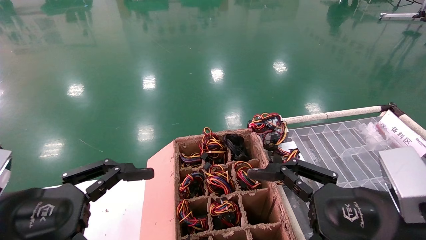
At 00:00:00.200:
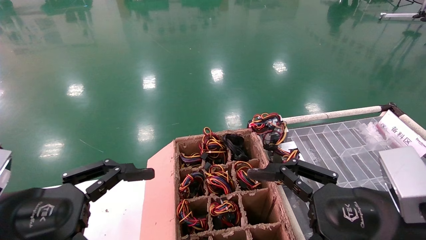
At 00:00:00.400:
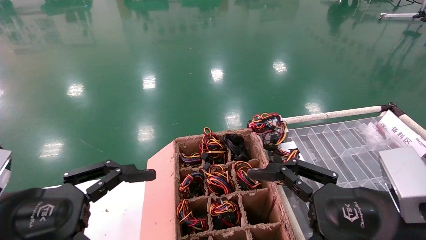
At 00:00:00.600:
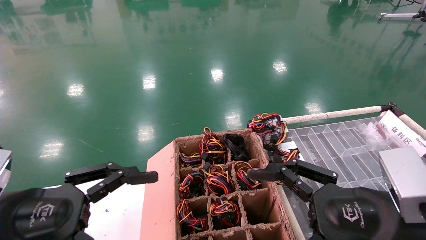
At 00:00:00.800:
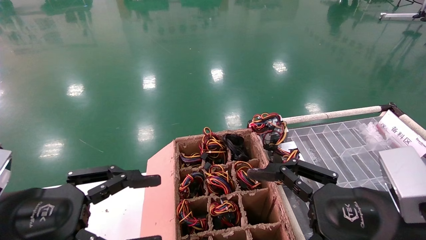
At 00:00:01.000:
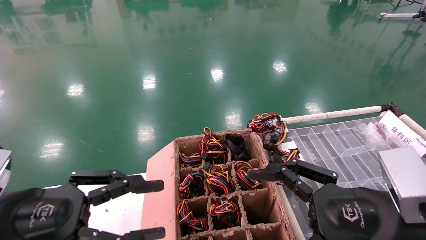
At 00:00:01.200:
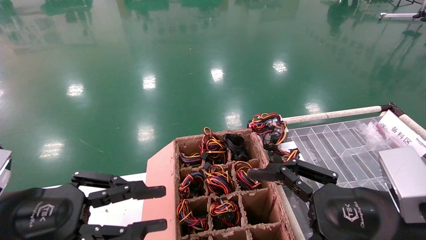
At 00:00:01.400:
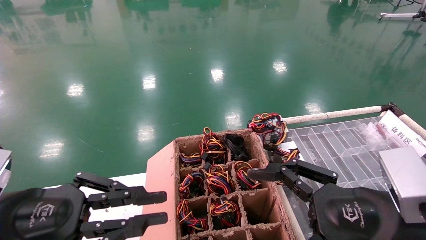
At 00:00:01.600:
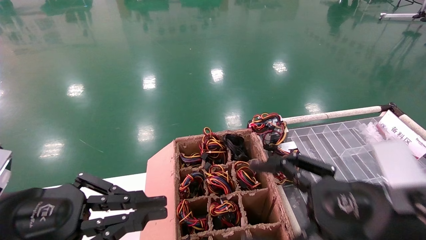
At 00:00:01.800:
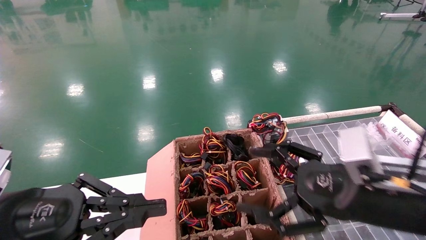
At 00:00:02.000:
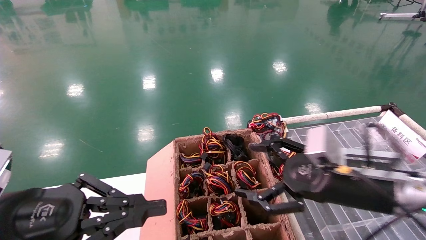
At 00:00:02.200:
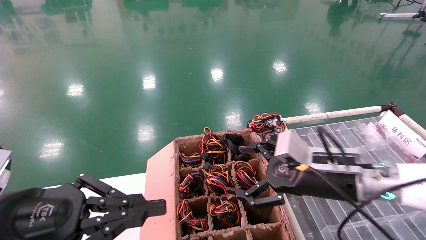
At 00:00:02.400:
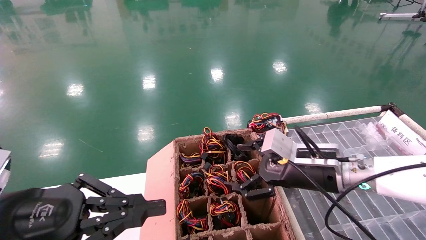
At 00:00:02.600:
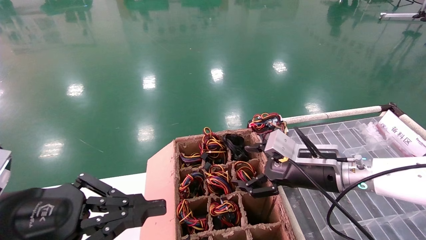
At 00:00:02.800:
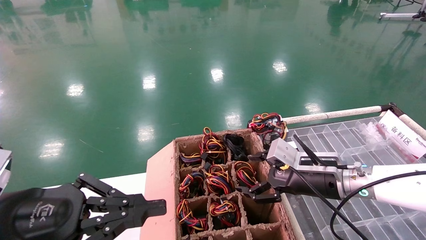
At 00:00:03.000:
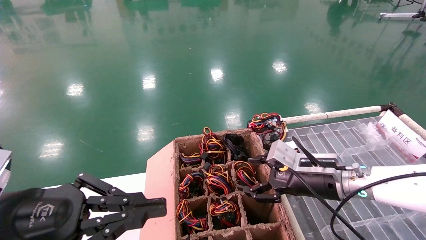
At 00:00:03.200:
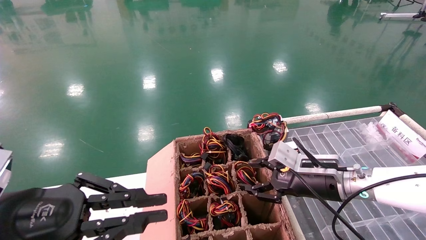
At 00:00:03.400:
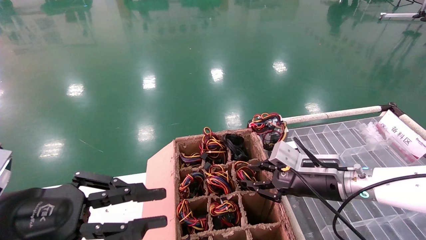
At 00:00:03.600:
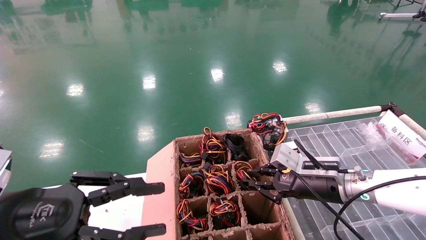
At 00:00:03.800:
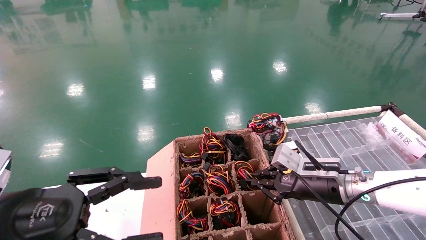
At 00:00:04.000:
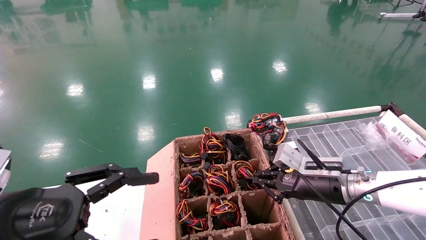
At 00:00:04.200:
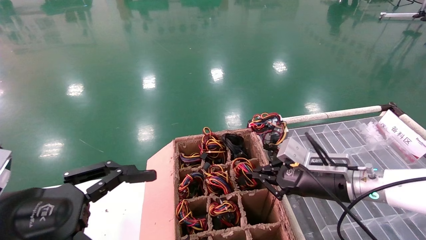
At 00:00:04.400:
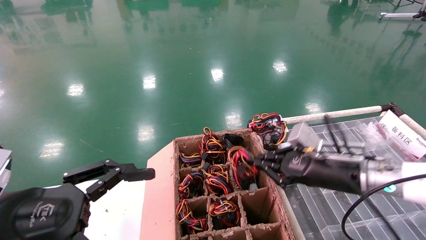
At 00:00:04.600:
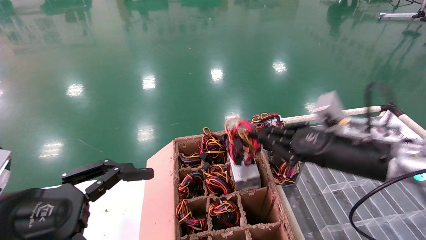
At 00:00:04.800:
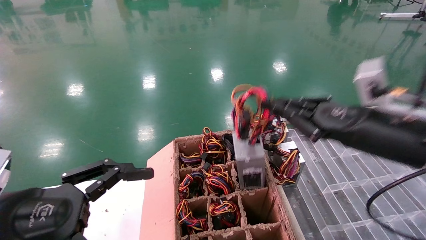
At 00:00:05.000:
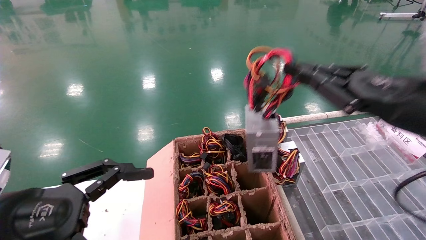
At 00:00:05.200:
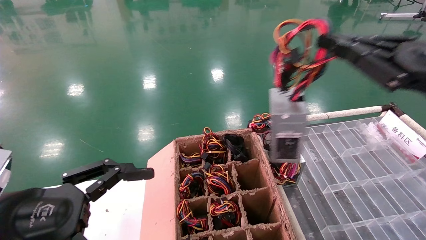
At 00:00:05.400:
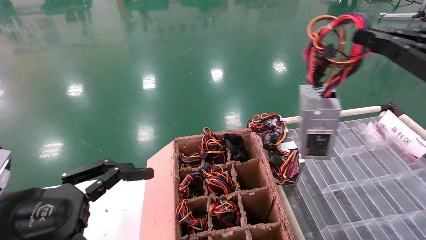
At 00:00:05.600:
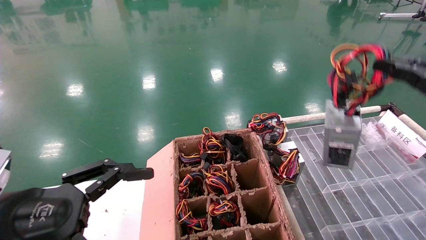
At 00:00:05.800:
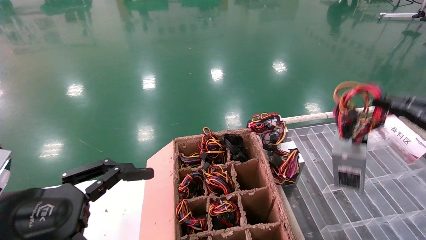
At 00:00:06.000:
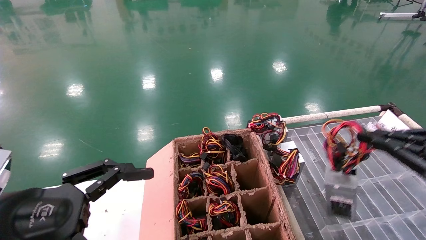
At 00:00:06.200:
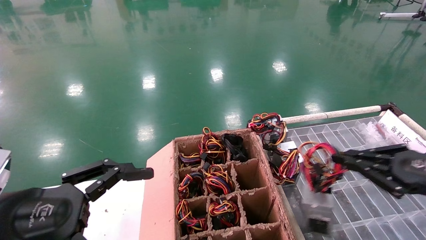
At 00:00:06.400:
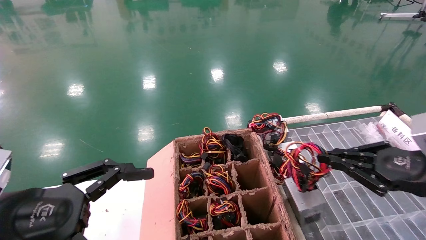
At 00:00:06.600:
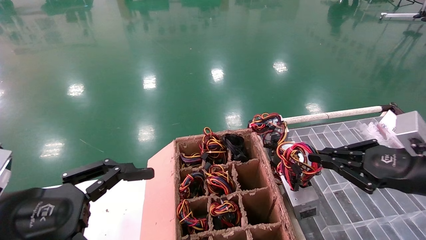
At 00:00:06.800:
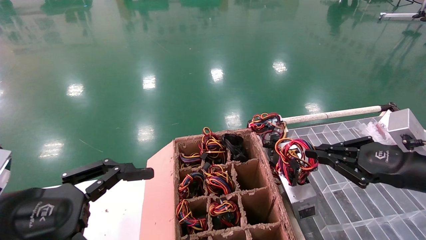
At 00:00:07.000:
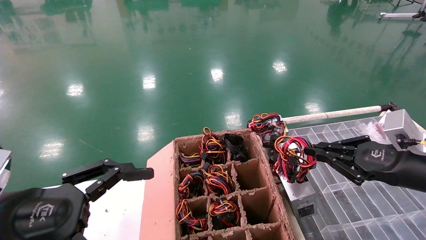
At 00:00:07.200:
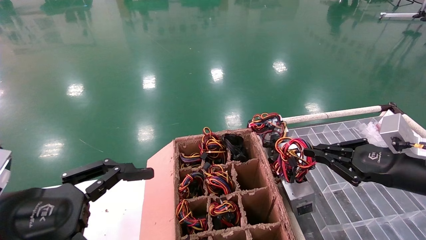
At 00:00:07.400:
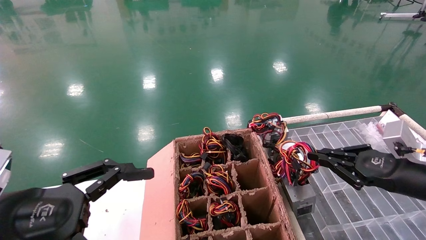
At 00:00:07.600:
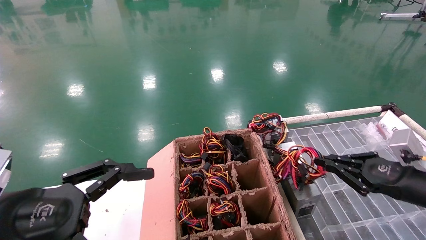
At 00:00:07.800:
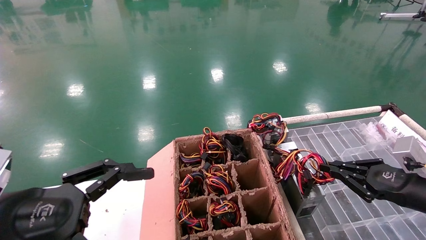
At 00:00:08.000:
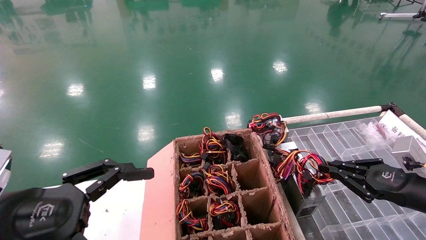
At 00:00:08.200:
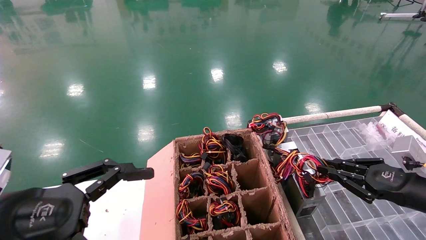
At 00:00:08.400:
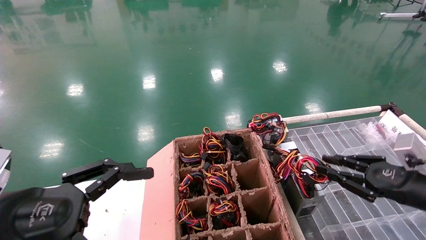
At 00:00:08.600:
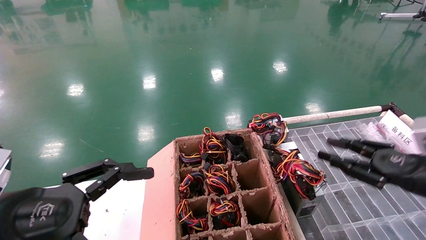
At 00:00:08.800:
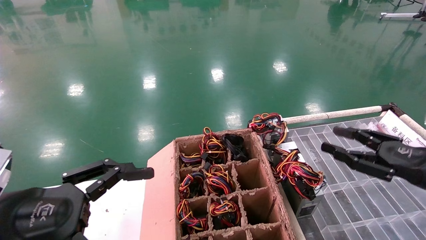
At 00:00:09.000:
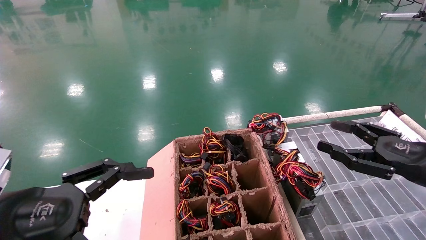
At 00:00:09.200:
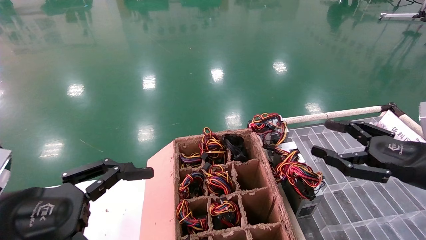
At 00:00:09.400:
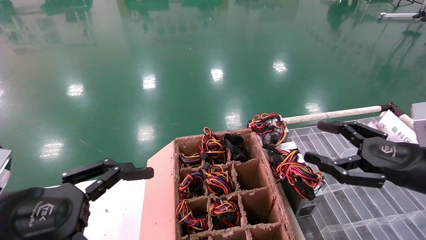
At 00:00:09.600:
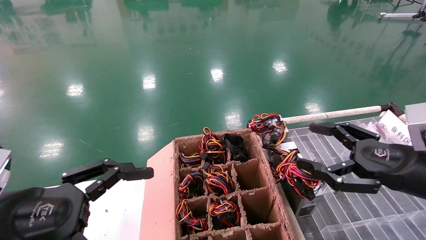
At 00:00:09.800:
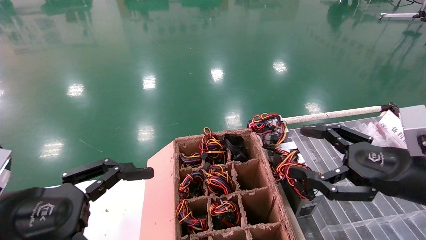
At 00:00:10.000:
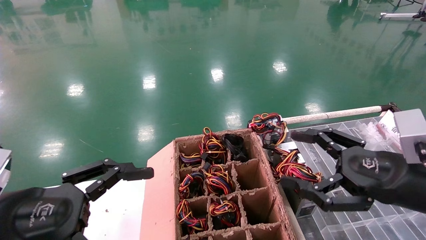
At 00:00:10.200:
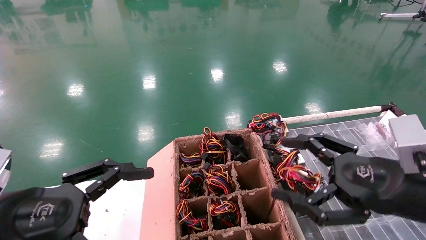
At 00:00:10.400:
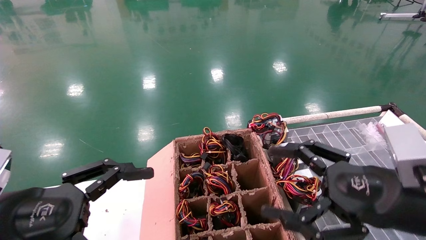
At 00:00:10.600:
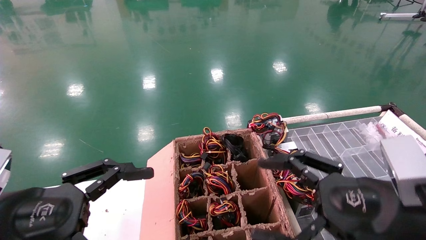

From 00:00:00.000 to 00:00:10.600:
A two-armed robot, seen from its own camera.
Step, from 00:00:01.800 to 00:00:04.200: Grab and lift the power supply from the large box.
Step, from 00:00:04.400 to 00:00:08.200: Place the power supply on the operating table.
From 00:00:00.000 to 00:00:01.600: The left gripper closes up.
From 00:00:01.600 to 00:00:03.000: The right gripper heads forward, covering approximately 15 cm.
From 00:00:03.000 to 00:00:04.600: The right gripper shifts some 10 cm upward and backward, and closes. Meanwhile the left gripper opens its fingers.
From 00:00:04.600 to 00:00:06.000: The right gripper goes approximately 20 cm to the right and backward.
From 00:00:06.000 to 00:00:07.600: The right gripper moves forward and downward, approximately 10 cm.
From 00:00:07.600 to 00:00:09.000: The right gripper opens.
From 00:00:09.000 to 00:00:10.600: The right gripper is displaced to the left and backward by approximately 15 cm, and opens its fingers.
